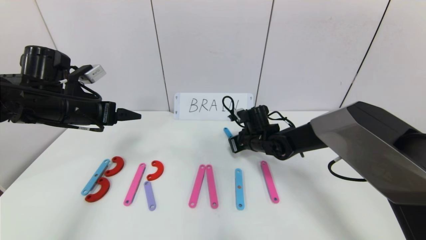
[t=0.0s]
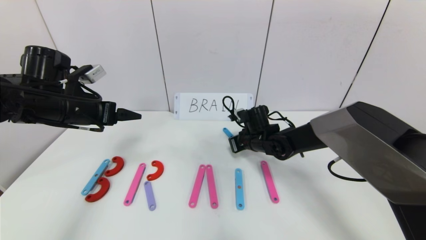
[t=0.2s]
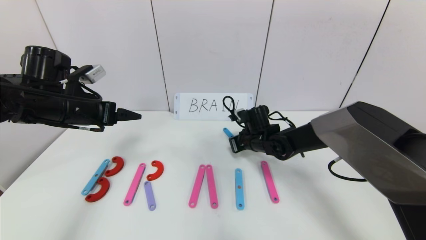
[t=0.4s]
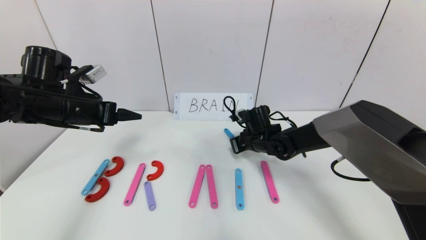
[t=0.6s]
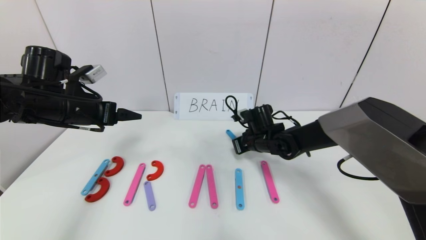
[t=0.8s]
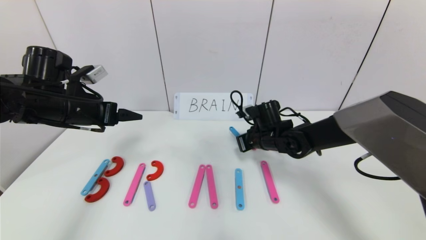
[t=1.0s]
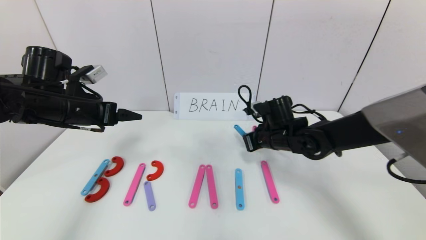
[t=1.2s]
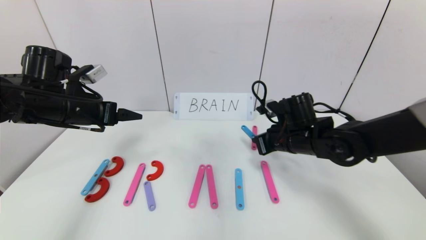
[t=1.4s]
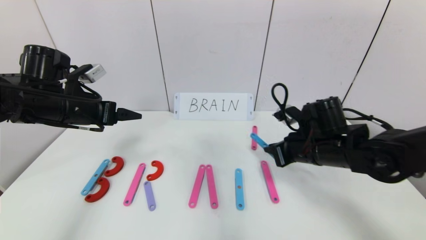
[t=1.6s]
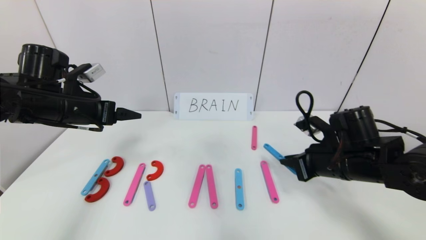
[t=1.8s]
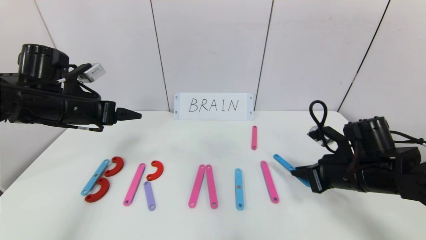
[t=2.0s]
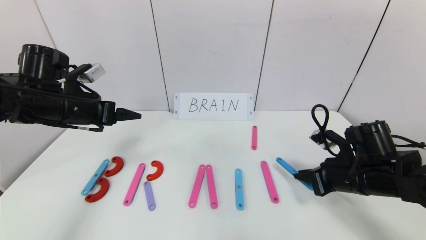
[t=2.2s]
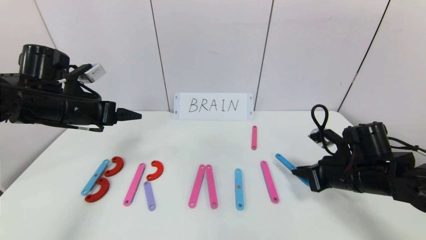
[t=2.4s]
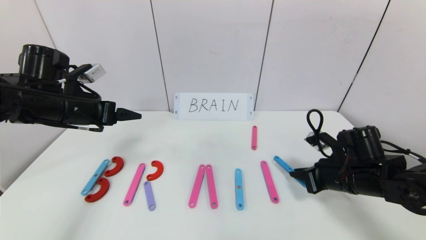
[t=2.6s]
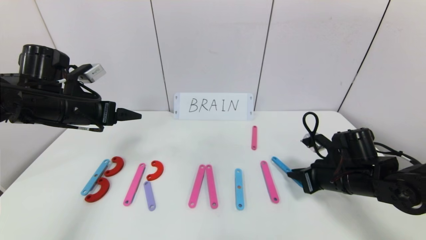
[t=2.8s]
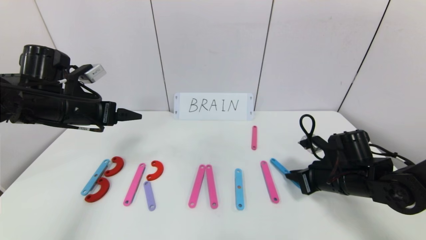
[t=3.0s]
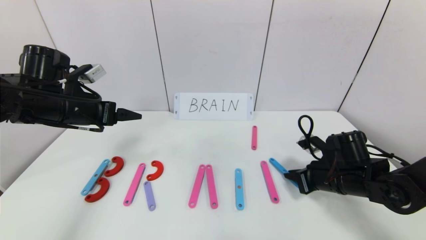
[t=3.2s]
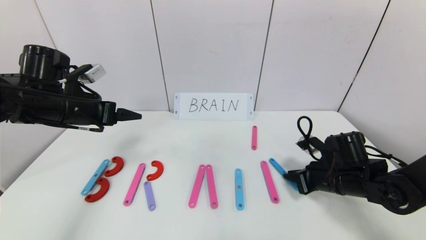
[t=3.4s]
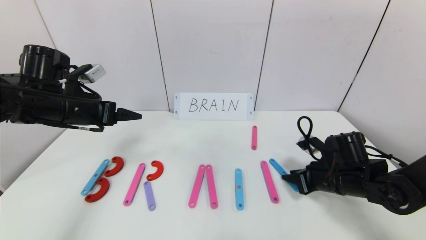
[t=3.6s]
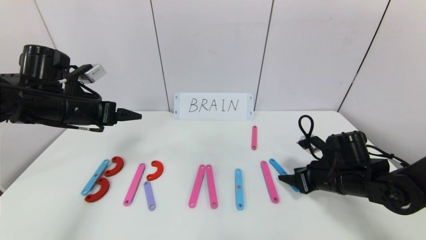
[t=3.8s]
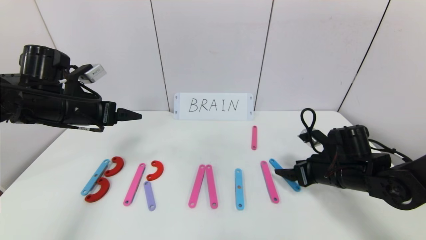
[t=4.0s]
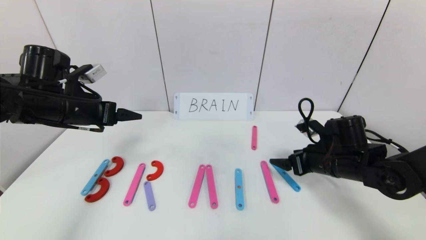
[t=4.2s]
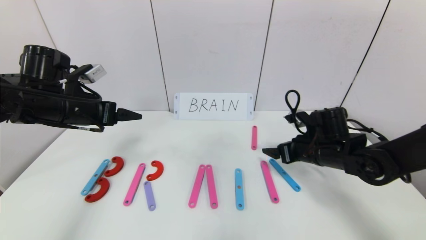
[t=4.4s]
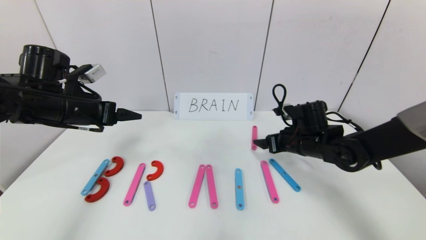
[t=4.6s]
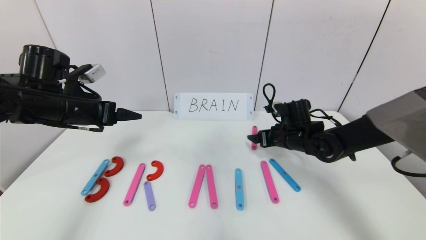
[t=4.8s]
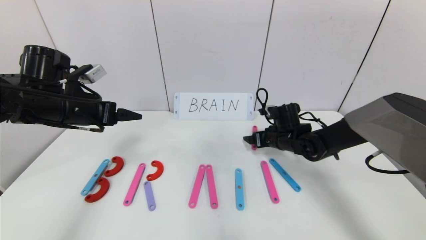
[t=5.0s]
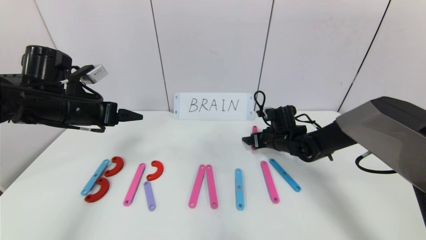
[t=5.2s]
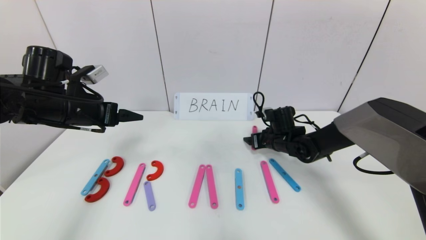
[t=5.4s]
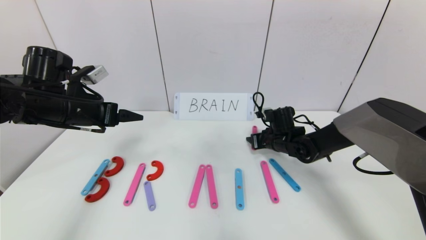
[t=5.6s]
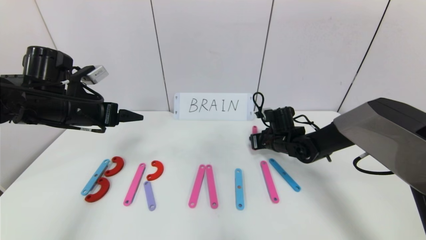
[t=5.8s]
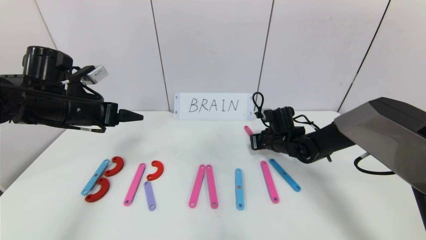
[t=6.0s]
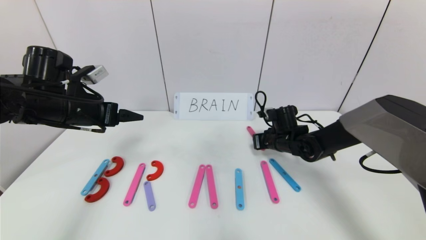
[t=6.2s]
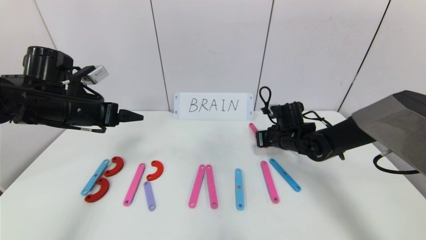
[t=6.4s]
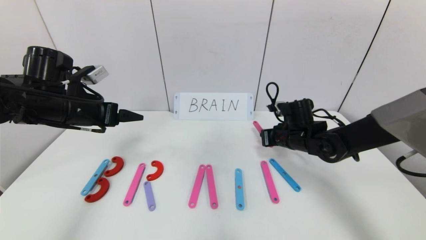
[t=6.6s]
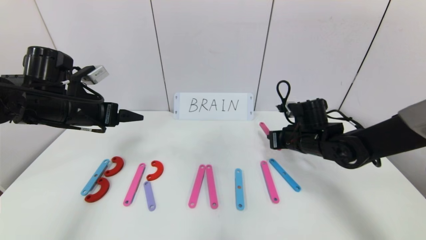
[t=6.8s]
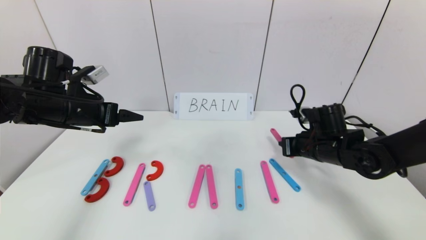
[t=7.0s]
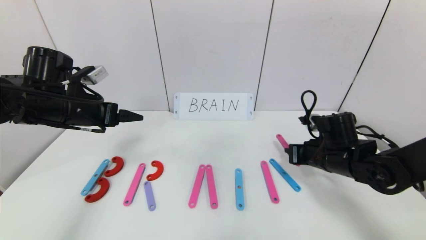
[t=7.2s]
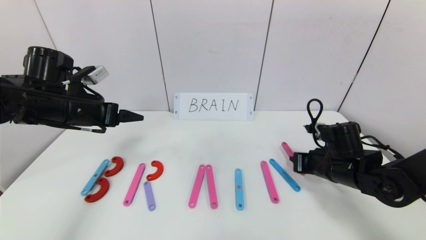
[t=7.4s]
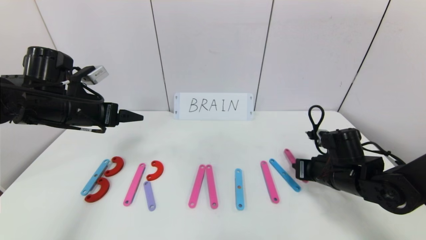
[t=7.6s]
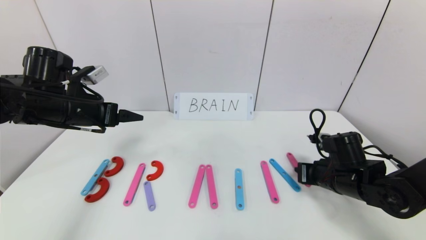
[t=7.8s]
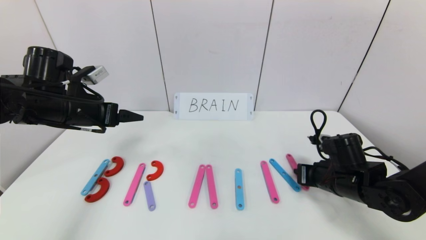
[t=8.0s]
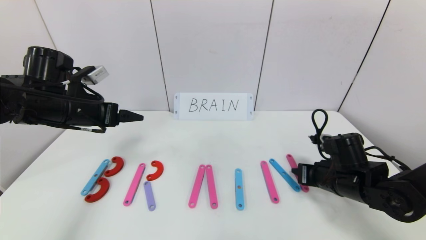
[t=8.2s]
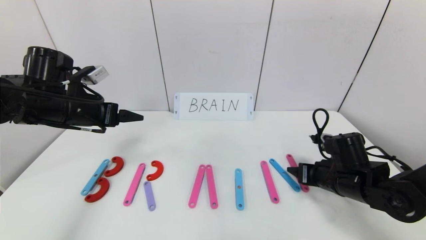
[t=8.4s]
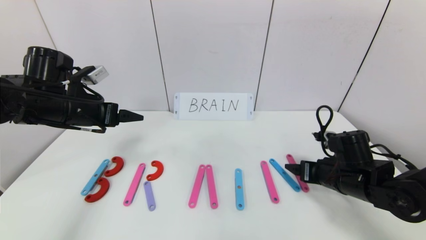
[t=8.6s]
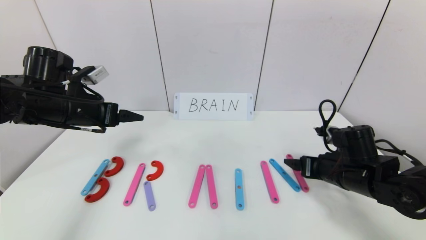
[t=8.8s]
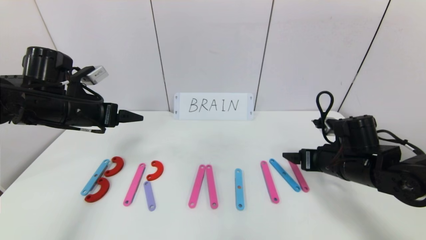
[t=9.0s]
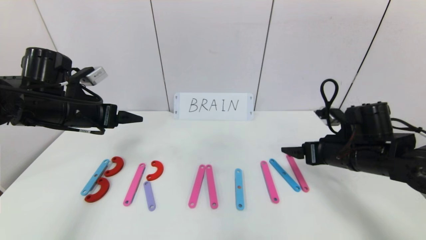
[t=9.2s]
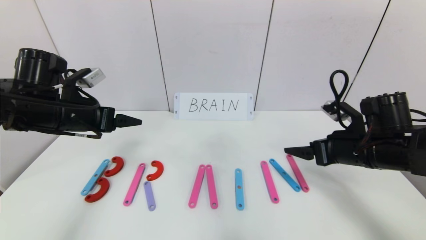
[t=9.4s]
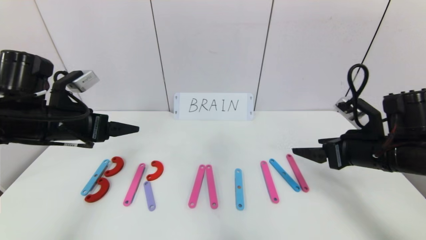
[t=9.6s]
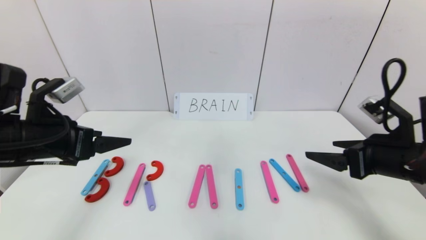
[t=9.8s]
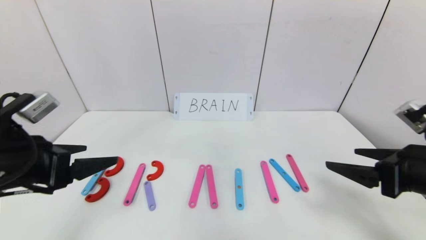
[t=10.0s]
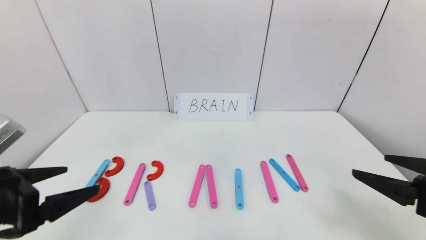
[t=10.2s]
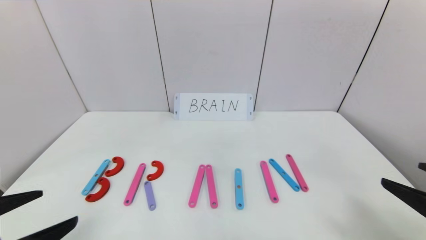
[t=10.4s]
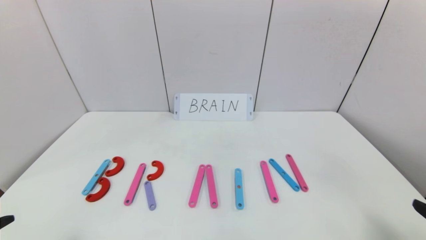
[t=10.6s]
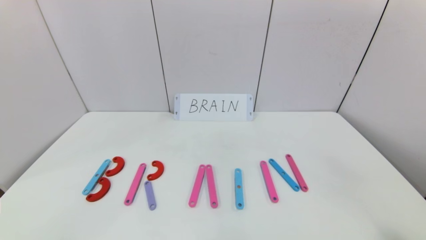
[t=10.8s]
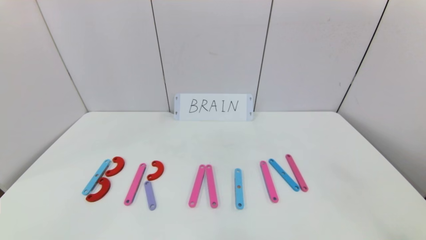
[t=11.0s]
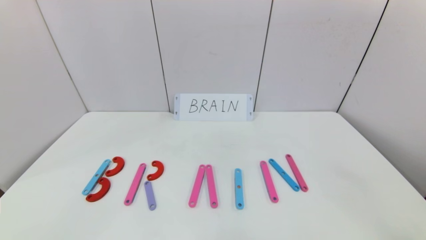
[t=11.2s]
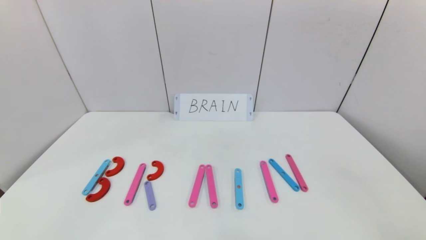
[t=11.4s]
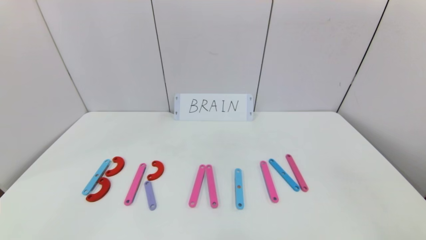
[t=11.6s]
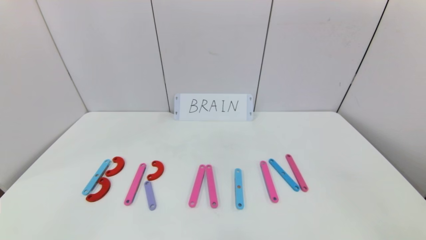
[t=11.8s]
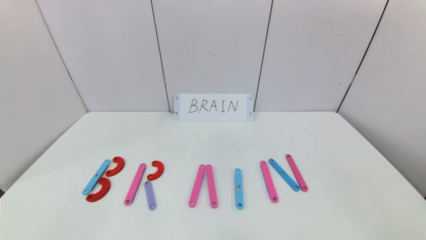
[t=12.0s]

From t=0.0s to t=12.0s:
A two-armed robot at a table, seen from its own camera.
Task of the whole recording: rearrange the word baai as brain.
Step, from t=0.0s to t=9.0s: Place the character N after character I.
From t=0.0s to t=1.6s: The right gripper is displaced backward, to the right and upward by about 15 cm.
From t=1.6s to t=3.0s: The right gripper goes some 10 cm downward and to the right.
From t=3.0s to t=4.4s: The right gripper changes place by some 5 cm, and opens up.
From t=4.4s to t=6.0s: The right gripper heads forward and to the left, covering approximately 10 cm, and closes its fingers.
From t=6.0s to t=7.6s: The right gripper goes roughly 15 cm backward and to the right.
From t=7.6s to t=9.0s: The right gripper opens its fingers.
From t=9.0s to t=10.4s: The left gripper moves backward, about 25 cm, while the right gripper goes approximately 20 cm backward and upward.
From t=10.4s to t=12.0s: Both grippers move backward, about 15 cm.

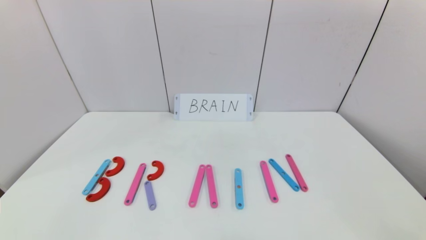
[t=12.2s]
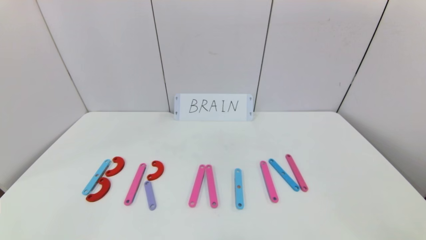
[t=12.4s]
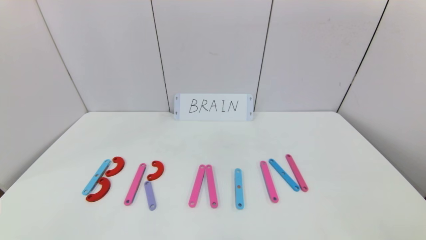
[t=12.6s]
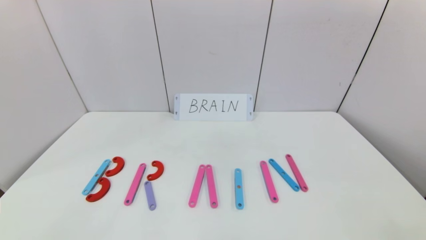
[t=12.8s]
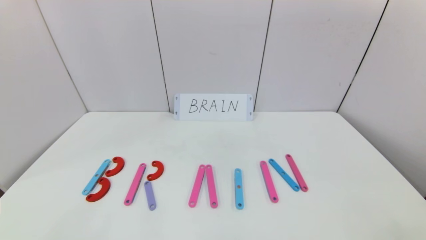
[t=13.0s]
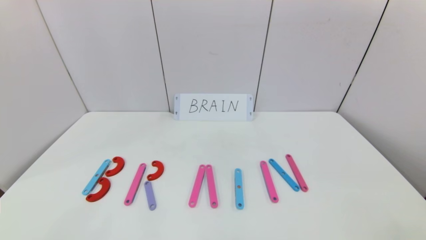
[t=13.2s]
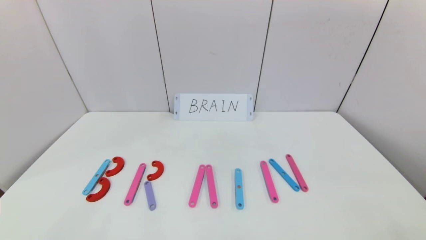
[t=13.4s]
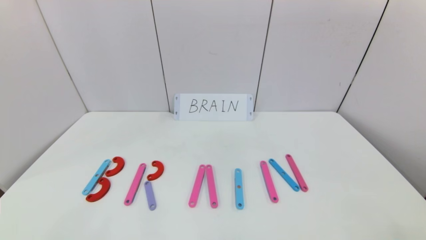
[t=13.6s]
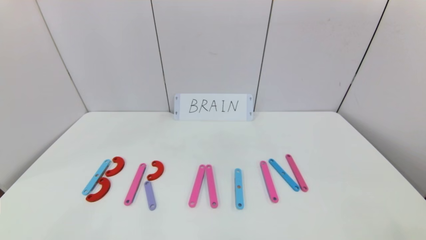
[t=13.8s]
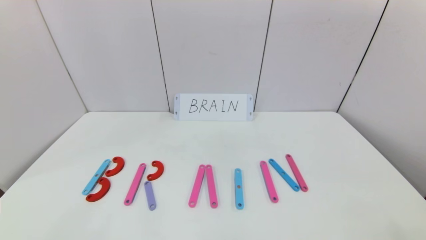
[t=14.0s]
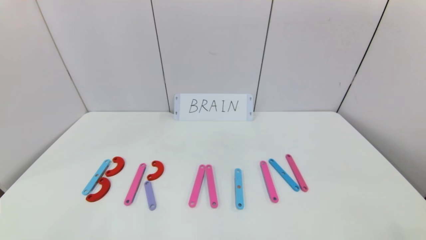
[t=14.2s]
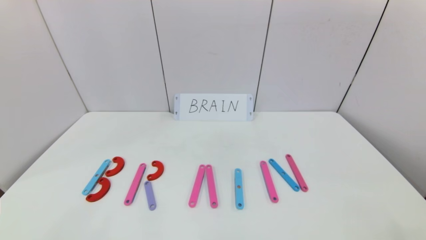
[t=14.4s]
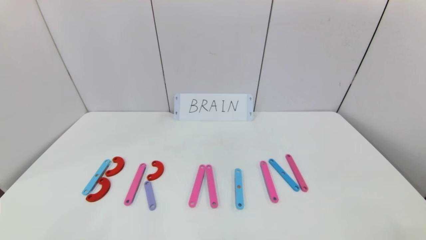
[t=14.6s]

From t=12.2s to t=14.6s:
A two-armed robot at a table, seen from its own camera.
Task of the whole recording: rearrange the word baai as brain.
From t=13.4s to t=14.6s: Both grippers stay put.
